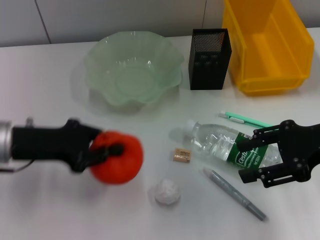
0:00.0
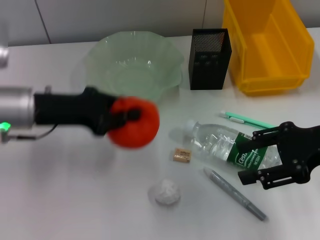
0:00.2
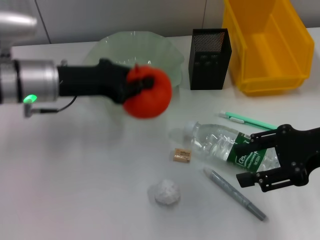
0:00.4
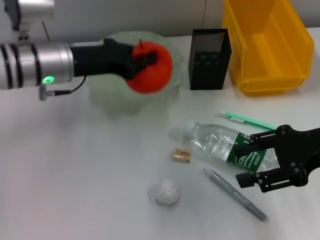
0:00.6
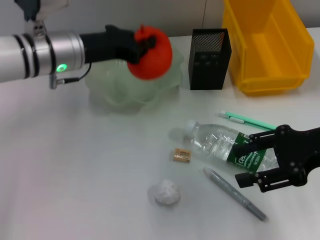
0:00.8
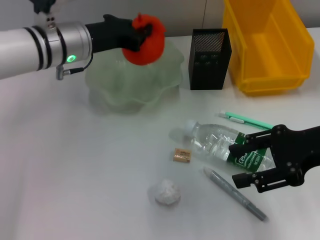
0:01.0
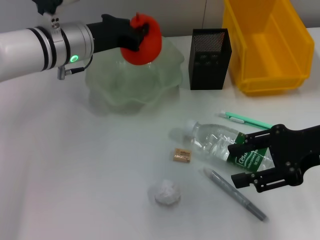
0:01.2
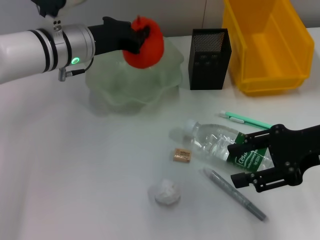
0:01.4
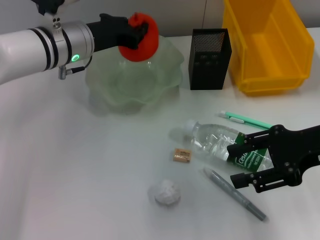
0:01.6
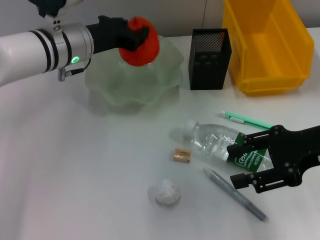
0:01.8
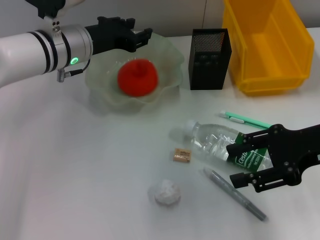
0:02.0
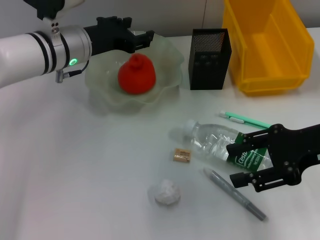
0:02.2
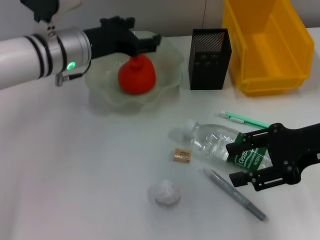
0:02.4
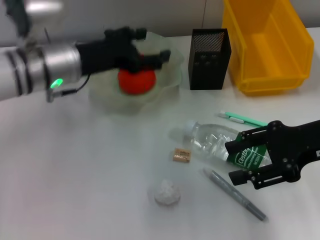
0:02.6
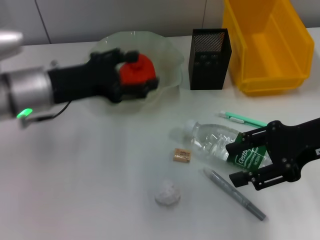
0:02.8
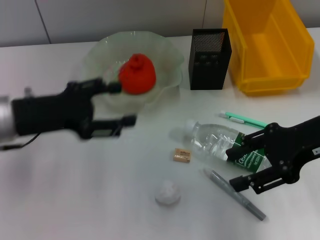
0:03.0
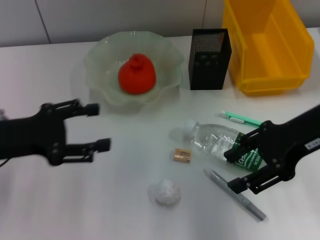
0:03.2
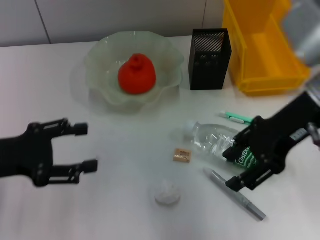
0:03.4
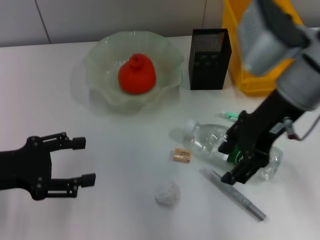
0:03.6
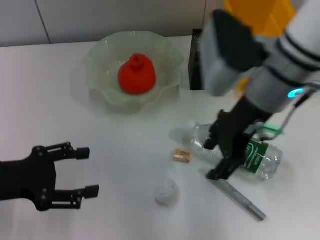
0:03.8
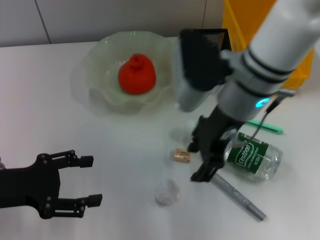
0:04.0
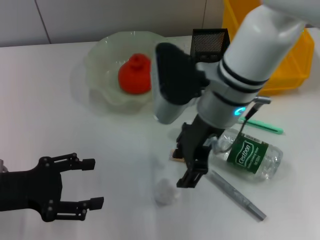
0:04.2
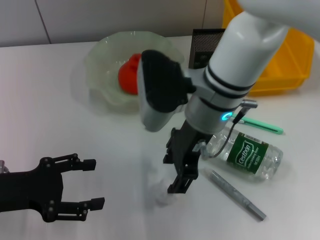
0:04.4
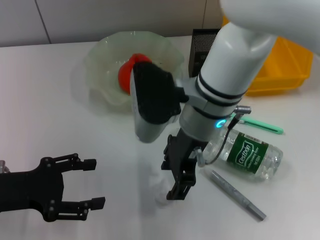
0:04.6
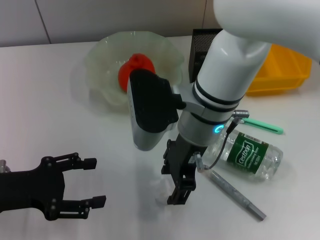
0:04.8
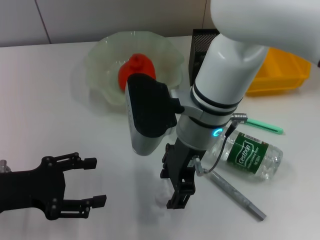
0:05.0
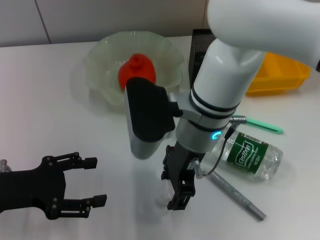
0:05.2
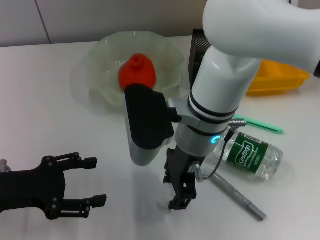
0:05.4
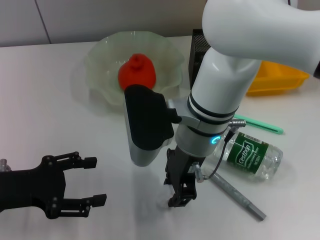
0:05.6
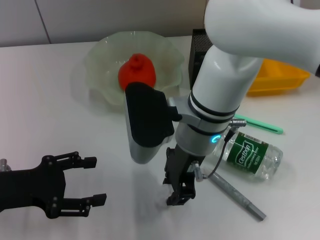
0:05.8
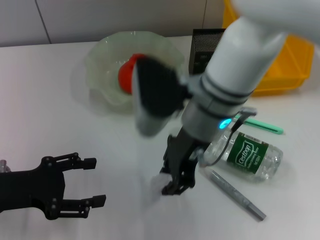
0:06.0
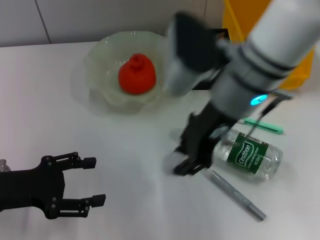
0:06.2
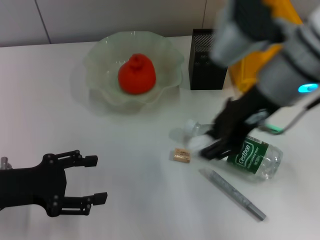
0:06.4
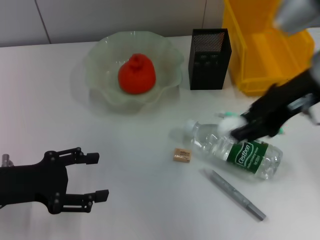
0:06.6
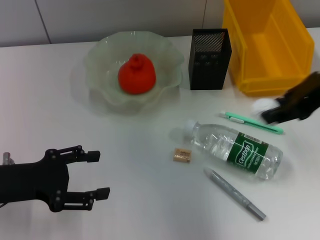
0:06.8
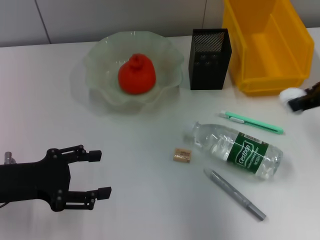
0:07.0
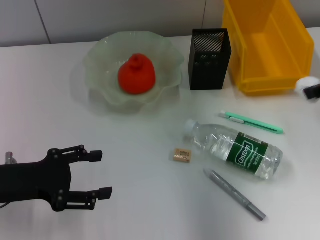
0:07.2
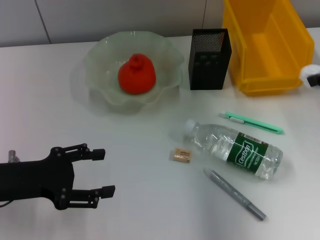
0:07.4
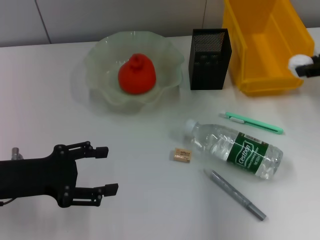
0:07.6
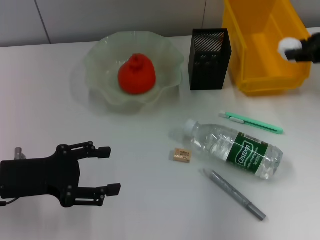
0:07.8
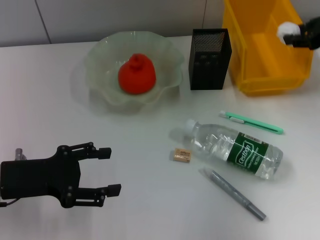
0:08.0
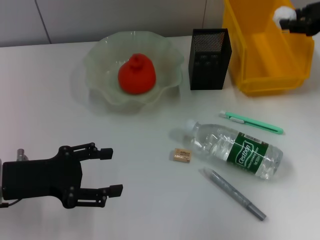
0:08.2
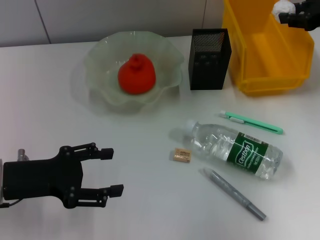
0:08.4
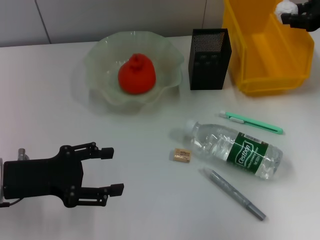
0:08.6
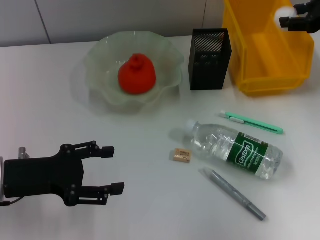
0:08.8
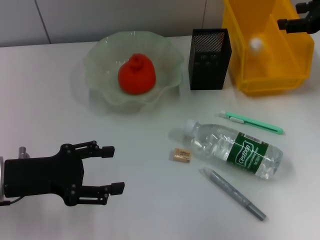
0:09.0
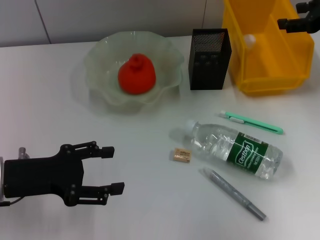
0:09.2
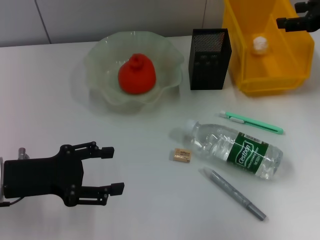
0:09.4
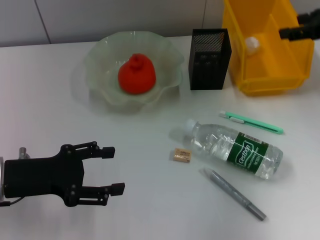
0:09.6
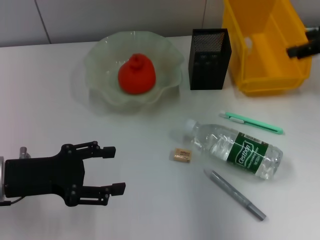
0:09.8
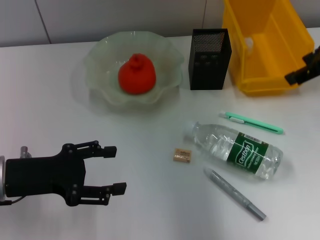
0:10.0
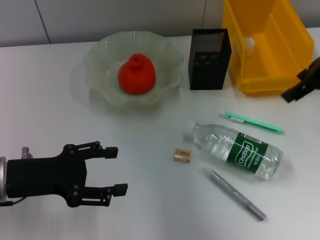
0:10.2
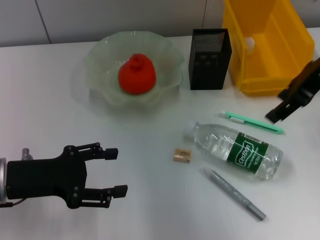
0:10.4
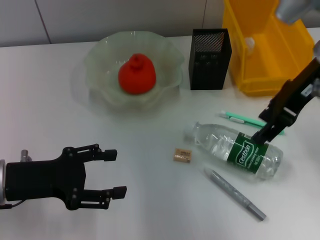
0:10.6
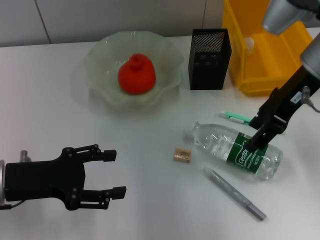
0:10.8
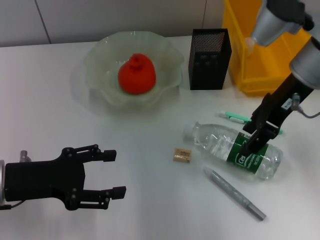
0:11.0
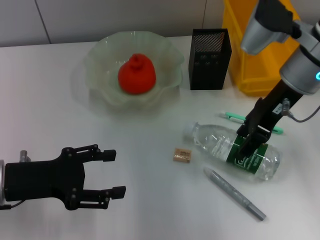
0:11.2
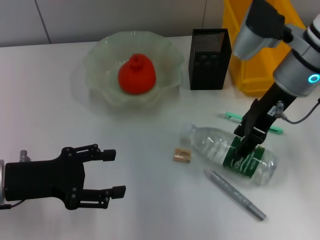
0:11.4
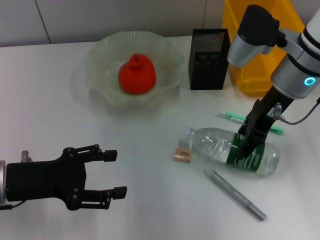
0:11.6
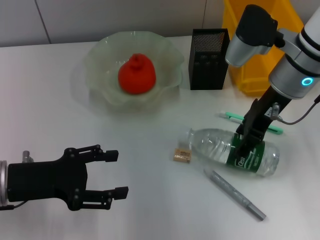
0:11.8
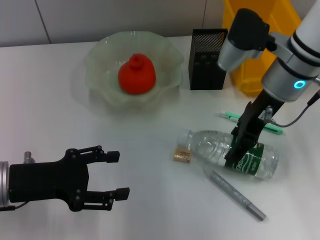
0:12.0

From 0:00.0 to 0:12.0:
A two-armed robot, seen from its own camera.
Step, from 0:00.0 to 0:03.4: Place the orange into the fruit bowl with the left hand.
Step, from 0:03.6 to 0:05.6: Grab the paper ball with the right hand.
Step, from 0:05.8 to 0:09.2: Place the paper ball into the trash can with the right hand.
From 0:00.0 to 0:01.6: The left gripper goes about 15 cm forward and to the right.
From 0:01.6 to 0:03.0: The left gripper goes some 15 cm backward and to the left, and opens.
From 0:03.0 to 0:04.4: The left gripper is displaced backward and to the left by approximately 10 cm. The right gripper is displaced to the left by about 20 cm.
From 0:04.4 to 0:06.0: The right gripper closes up.
From 0:06.0 to 0:07.6: The right gripper moves to the right, some 30 cm.
From 0:07.6 to 0:09.0: The right gripper moves forward, some 5 cm, and opens up.
From 0:09.0 to 0:10.4: The right gripper goes some 15 cm to the left and backward.
From 0:10.4 to 0:12.0: The right gripper travels downward and to the left by roughly 10 cm.

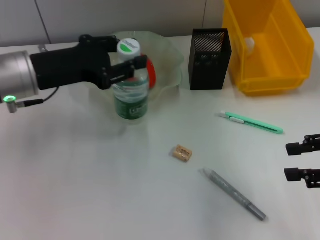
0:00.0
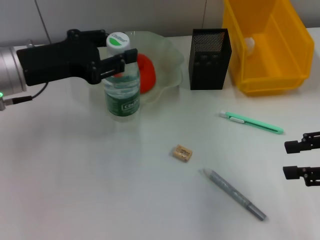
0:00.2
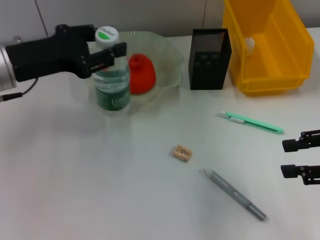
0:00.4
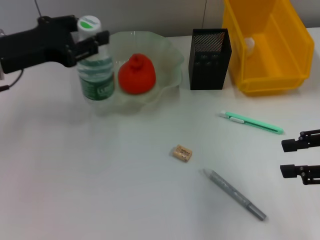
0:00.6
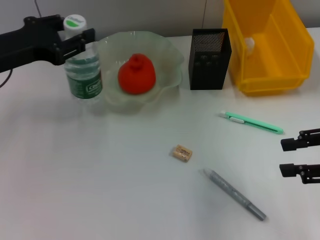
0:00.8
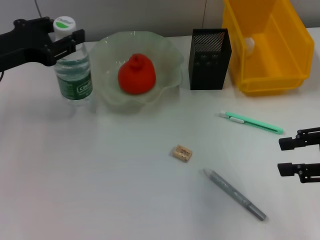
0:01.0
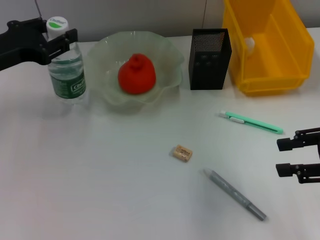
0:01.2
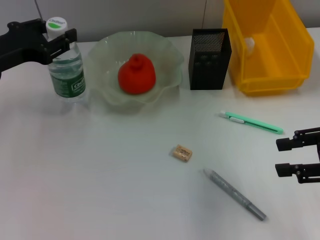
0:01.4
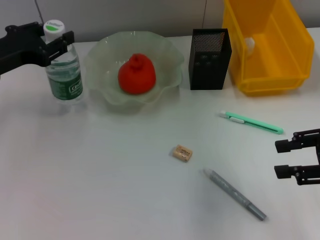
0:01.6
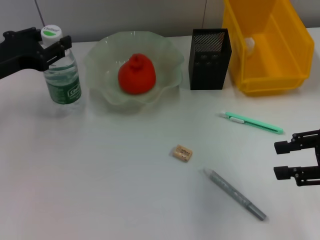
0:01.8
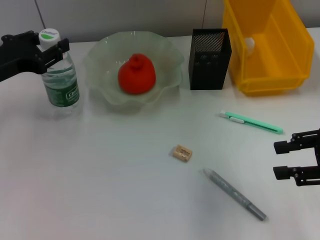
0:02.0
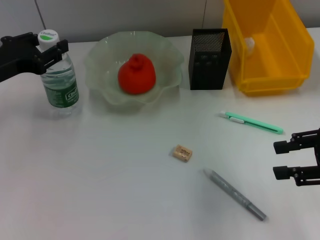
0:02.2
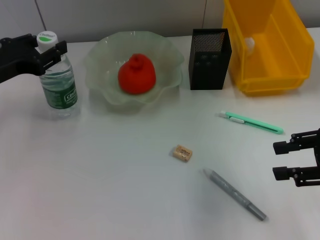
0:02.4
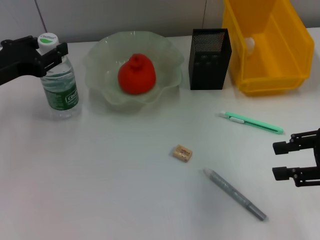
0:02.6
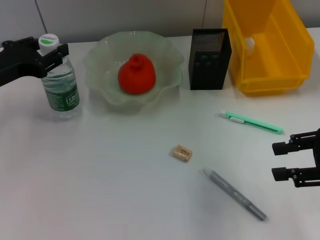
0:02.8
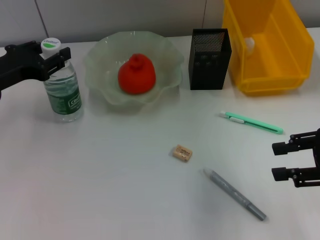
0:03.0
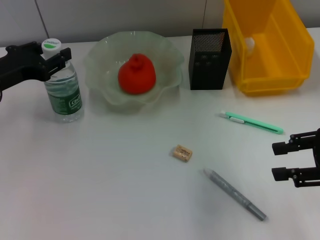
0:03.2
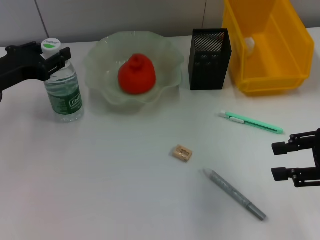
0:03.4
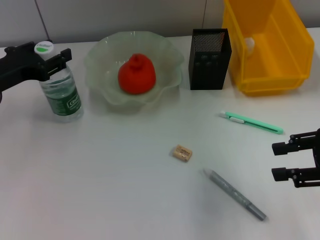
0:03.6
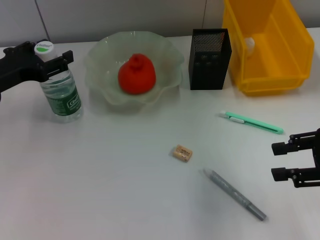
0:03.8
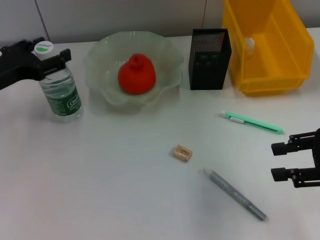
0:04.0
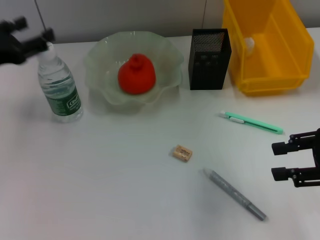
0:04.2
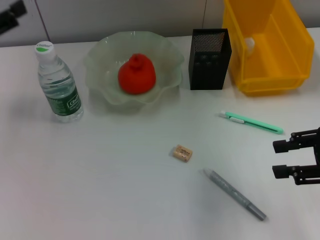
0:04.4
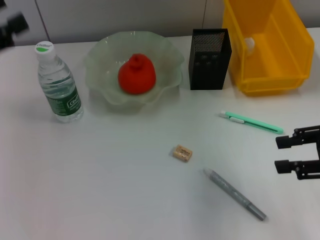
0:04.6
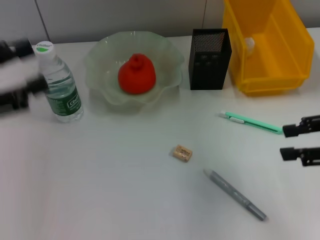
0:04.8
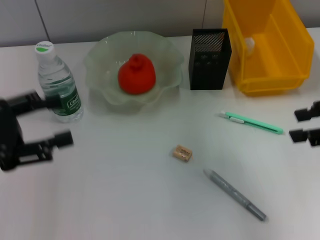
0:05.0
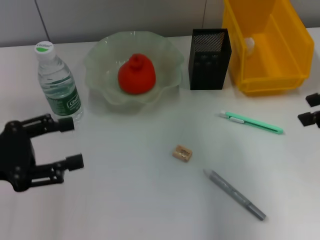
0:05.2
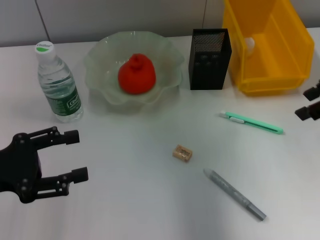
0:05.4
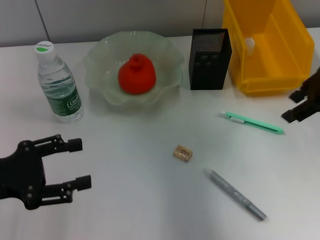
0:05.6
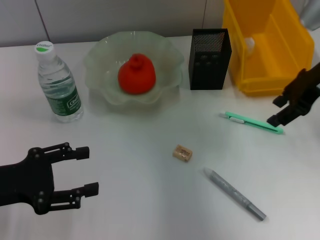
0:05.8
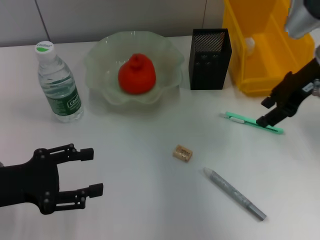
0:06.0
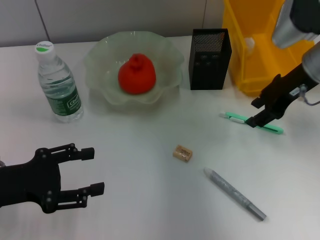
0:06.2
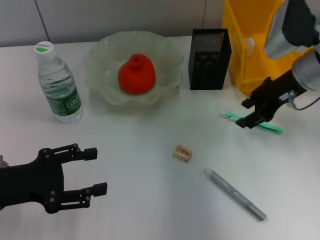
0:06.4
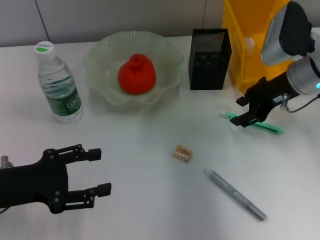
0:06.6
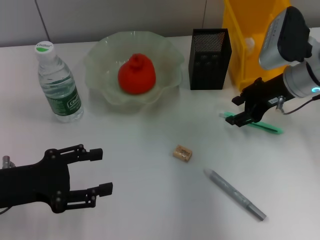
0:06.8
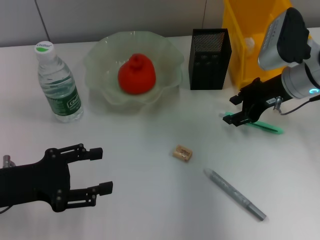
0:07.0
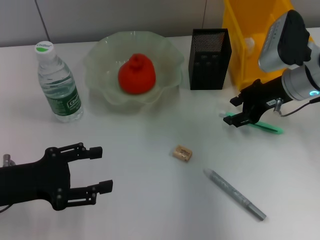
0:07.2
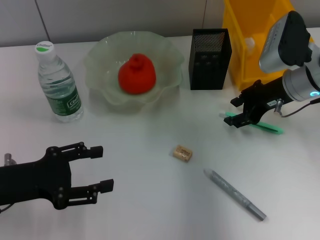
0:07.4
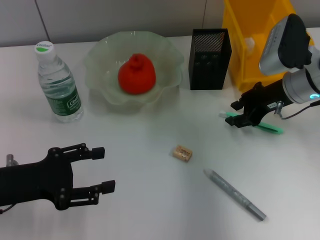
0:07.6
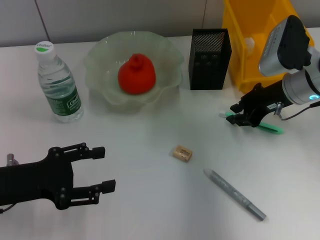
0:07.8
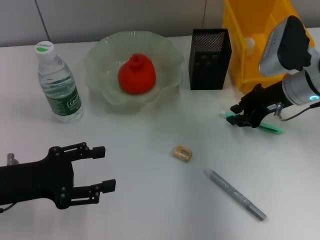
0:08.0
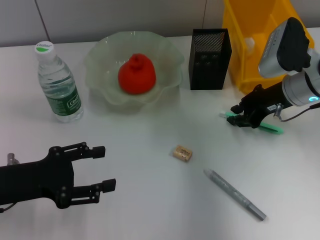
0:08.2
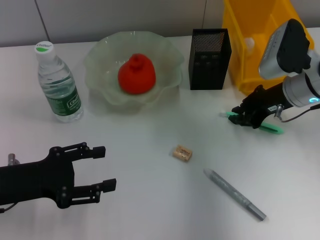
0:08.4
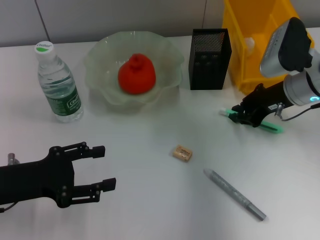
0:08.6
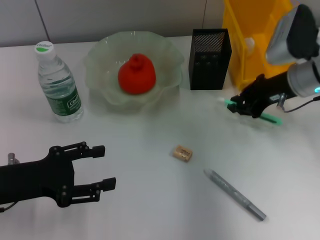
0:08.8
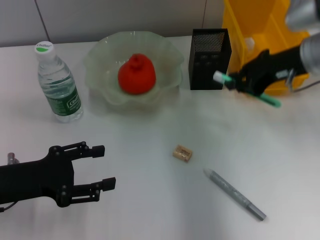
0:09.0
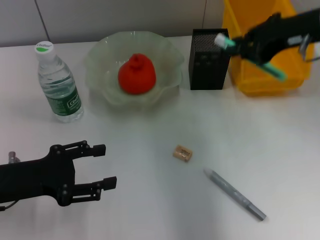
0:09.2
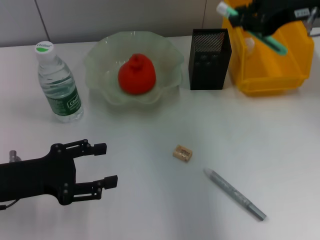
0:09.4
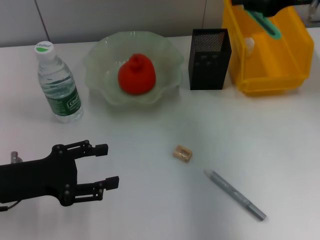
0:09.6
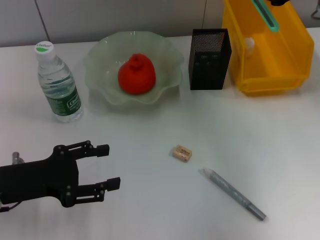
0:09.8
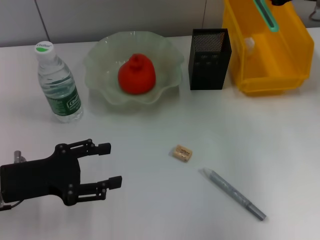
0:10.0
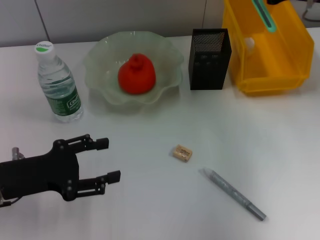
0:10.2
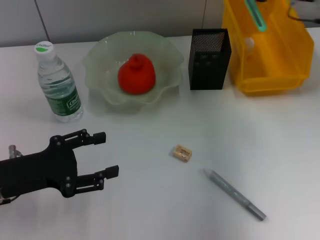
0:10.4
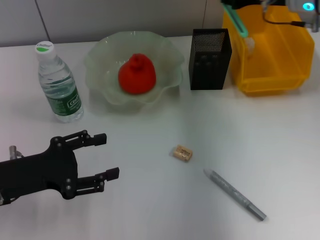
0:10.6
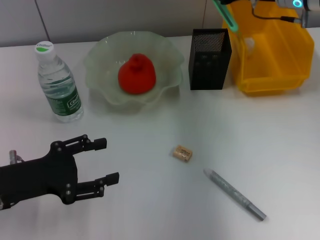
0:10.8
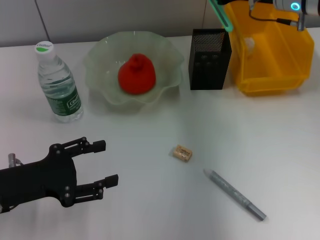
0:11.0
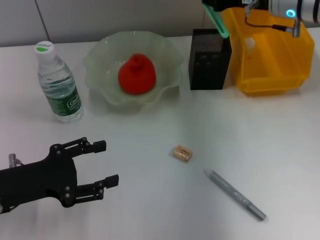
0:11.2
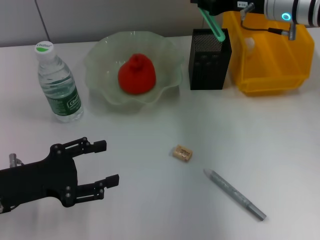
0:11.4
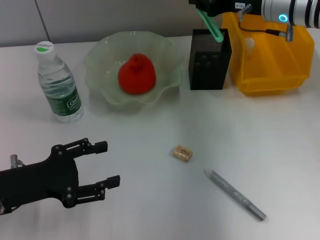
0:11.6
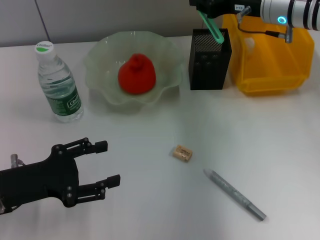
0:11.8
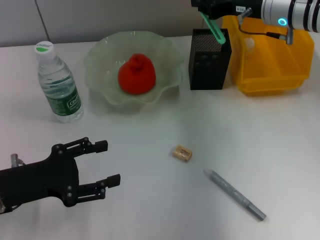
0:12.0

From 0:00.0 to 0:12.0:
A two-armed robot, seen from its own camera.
Step, from 0:00.0 to 0:04.0: Place the water bottle on the table with the left hand.
Step, from 0:04.2 to 0:08.4: Grab the blue utility knife with the right hand.
From 0:00.0 to 0:01.6: The left gripper moves to the left, roughly 5 cm.
From 0:01.6 to 0:03.0: The grippers stay close to where they were, moving slightly.
From 0:03.0 to 0:04.4: The left gripper shifts roughly 5 cm upward, and opens.
From 0:04.4 to 0:06.0: The right gripper shifts some 15 cm forward and to the left, while the left gripper is displaced downward and backward by roughly 10 cm.
From 0:06.0 to 0:07.6: The right gripper shifts approximately 5 cm downward.
From 0:07.6 to 0:09.0: The right gripper shifts approximately 5 cm upward, and closes up.
From 0:09.0 to 0:10.4: The right gripper heads forward, covering about 5 cm, and reaches about 10 cm upward, then returns.
From 0:10.4 to 0:12.0: The right gripper travels to the left by roughly 5 cm.
